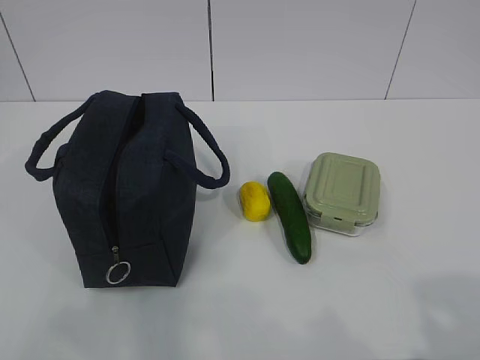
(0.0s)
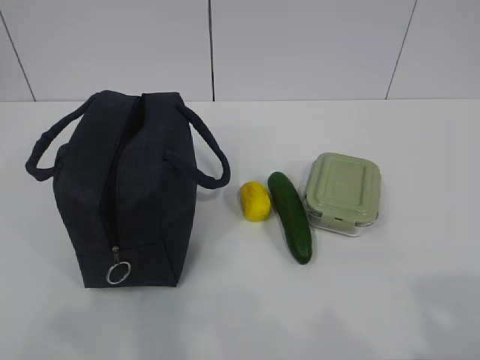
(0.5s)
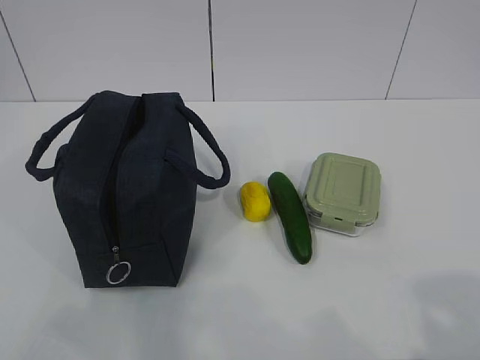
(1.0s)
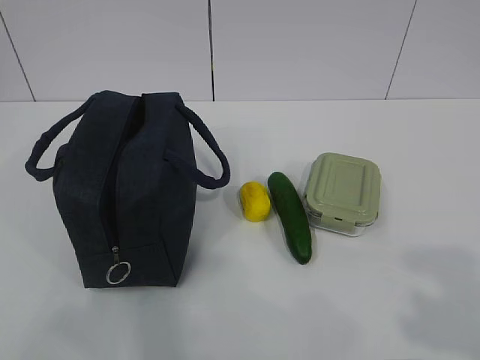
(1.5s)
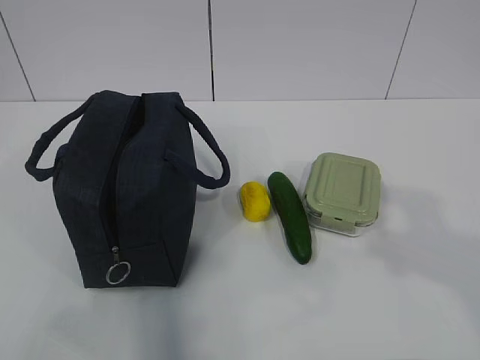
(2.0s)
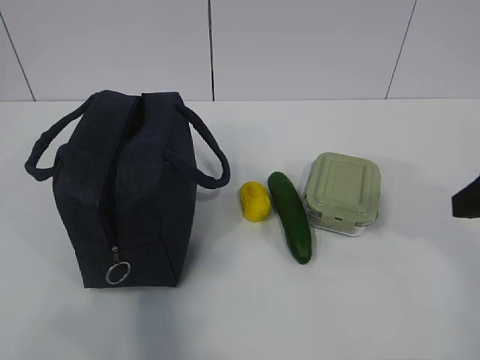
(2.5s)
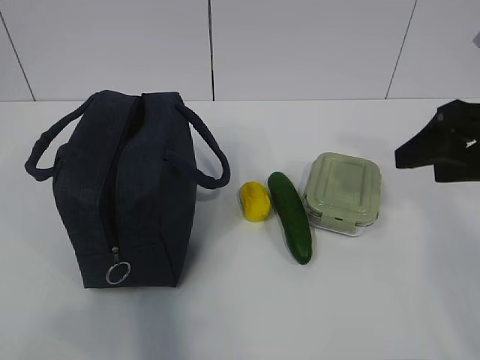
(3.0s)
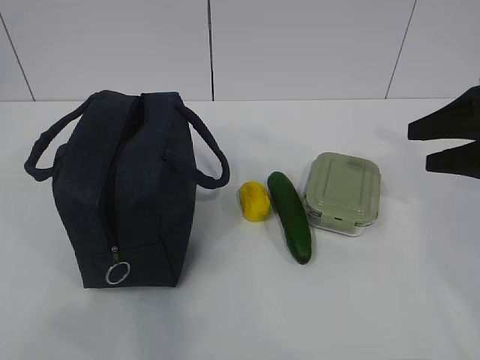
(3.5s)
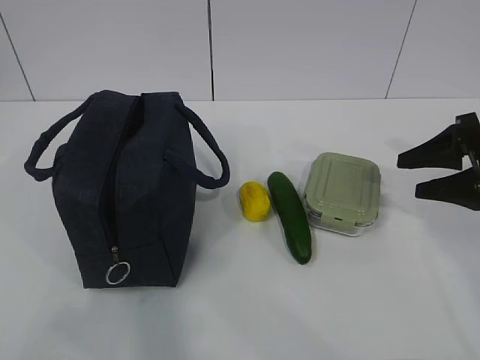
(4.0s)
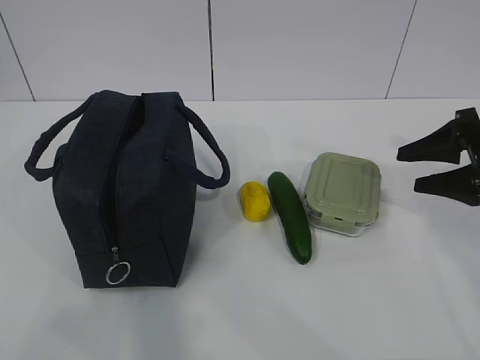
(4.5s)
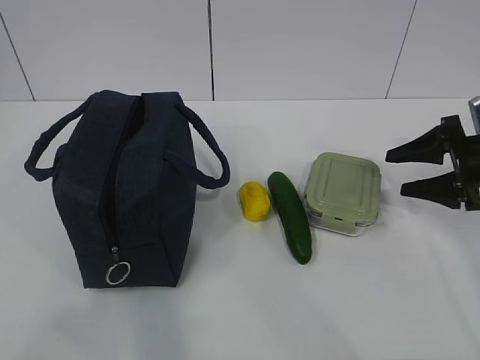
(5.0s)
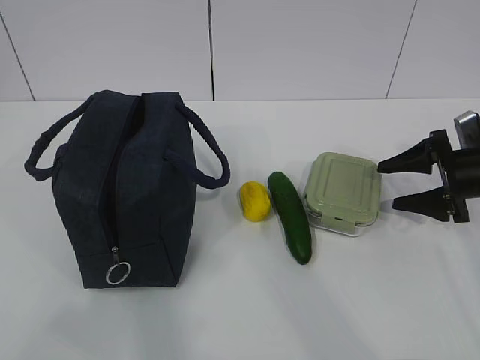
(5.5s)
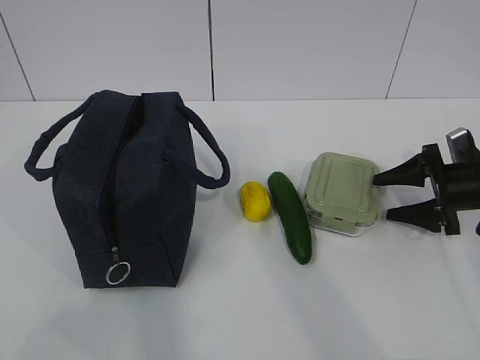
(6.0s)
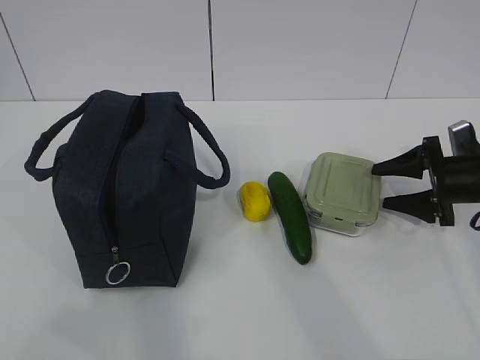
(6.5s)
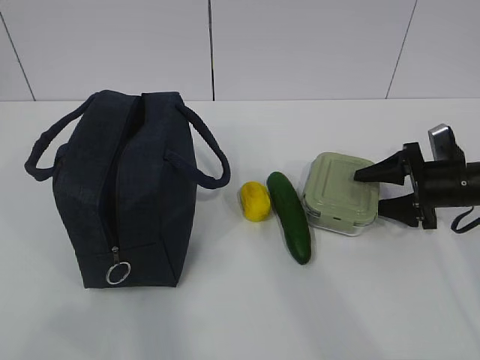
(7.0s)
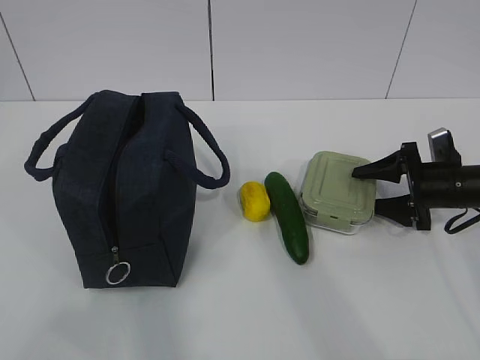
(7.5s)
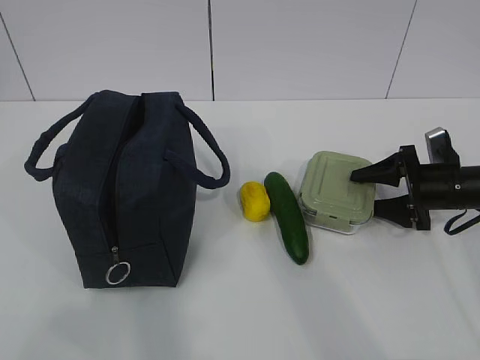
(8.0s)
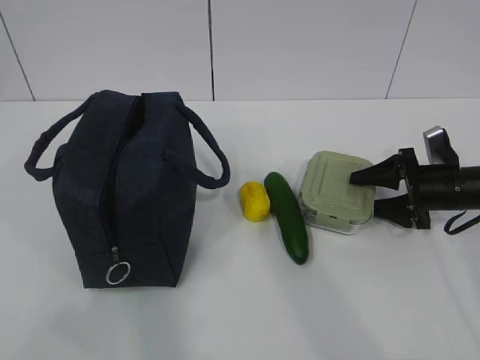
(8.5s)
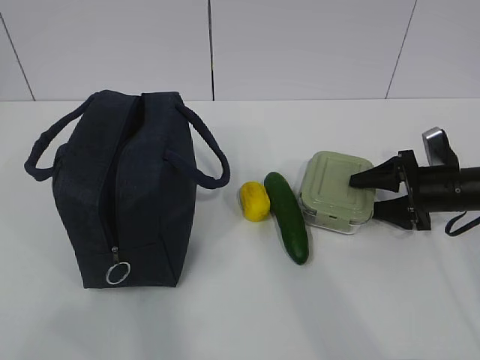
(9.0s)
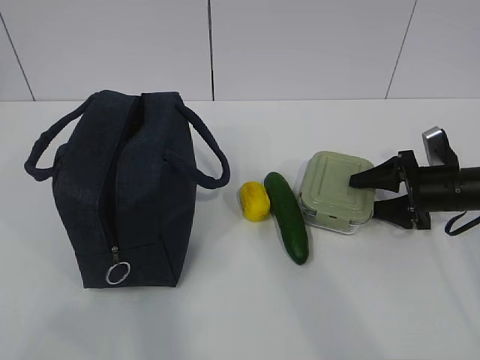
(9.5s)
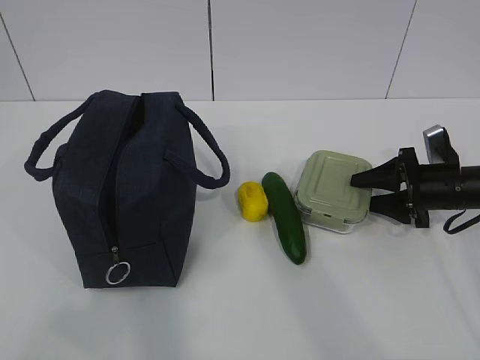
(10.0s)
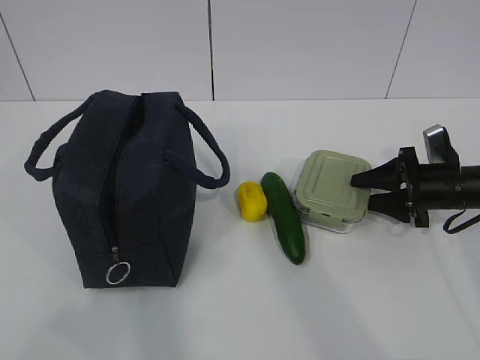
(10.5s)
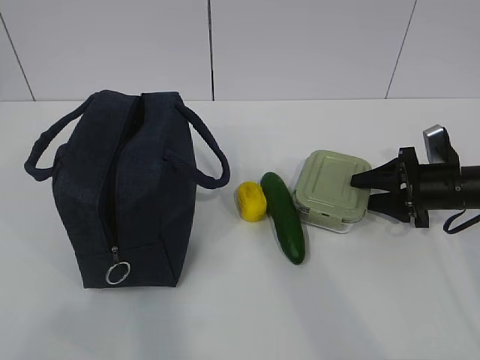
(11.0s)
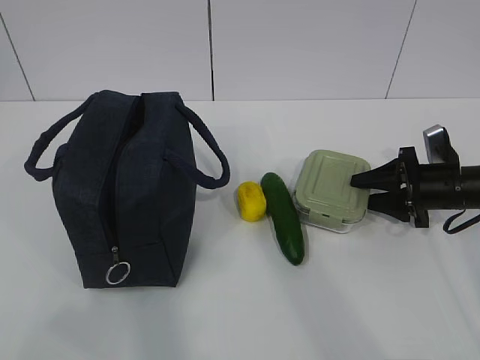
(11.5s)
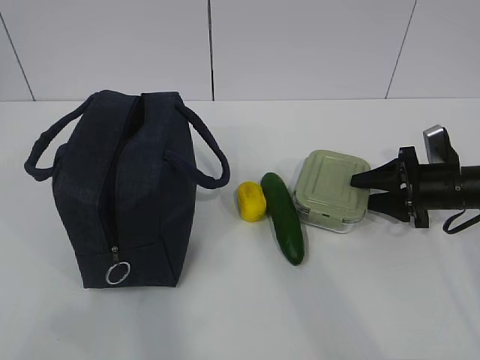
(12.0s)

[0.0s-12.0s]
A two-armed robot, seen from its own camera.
2.0s to 4.0s: The right gripper goes about 25 cm forward and downward.
4.0s to 6.0s: The right gripper is displaced downward and forward by about 10 cm.
6.0s to 10.0s: The grippers stay close to where they were, moving slightly.
10.0s to 12.0s: Both grippers stay about where they are.

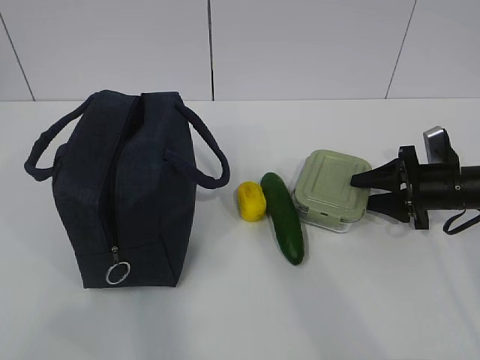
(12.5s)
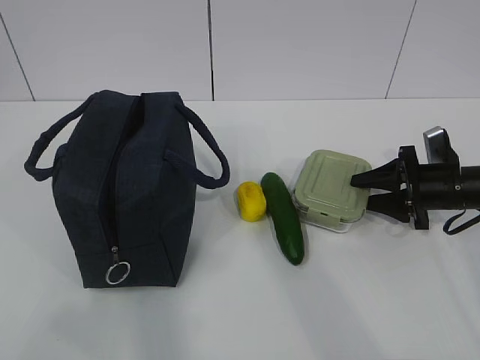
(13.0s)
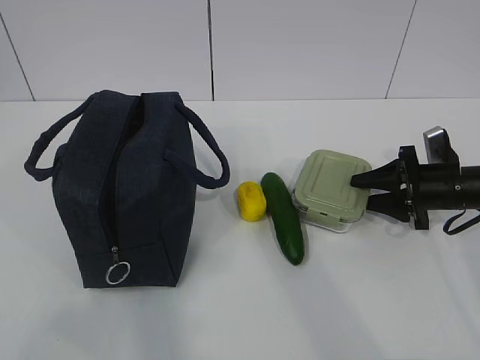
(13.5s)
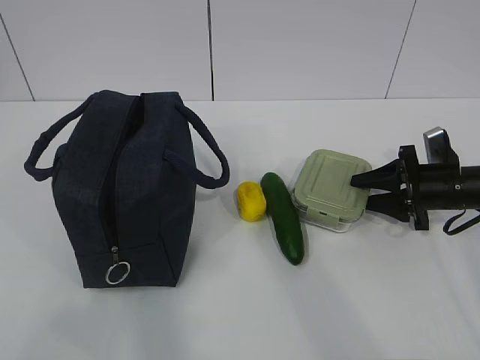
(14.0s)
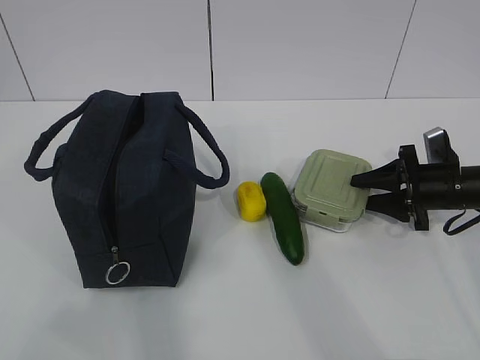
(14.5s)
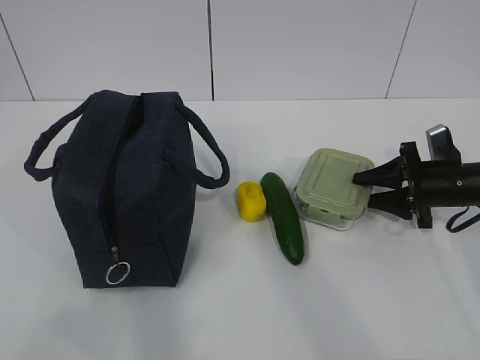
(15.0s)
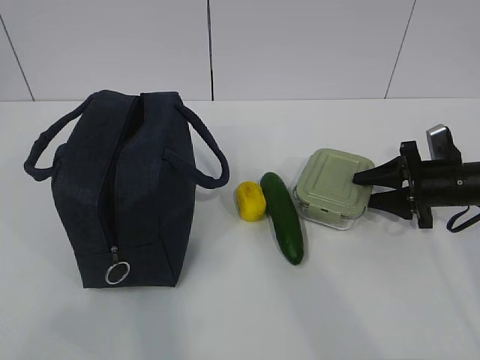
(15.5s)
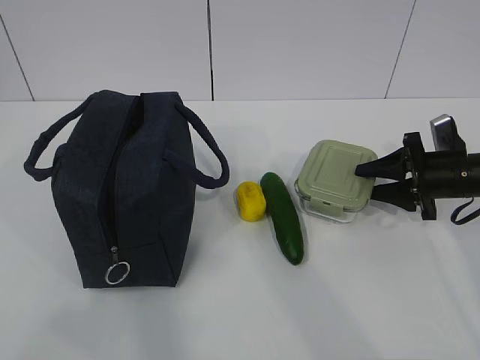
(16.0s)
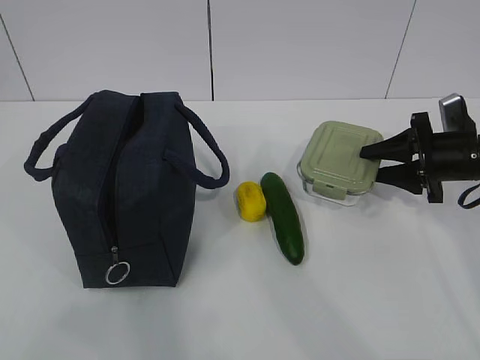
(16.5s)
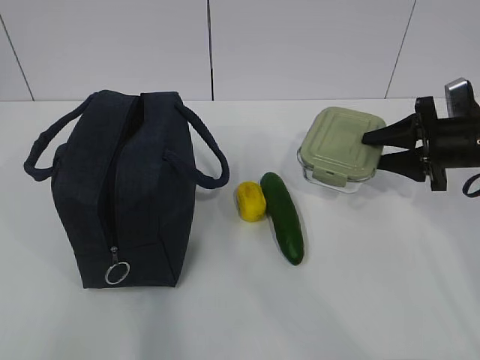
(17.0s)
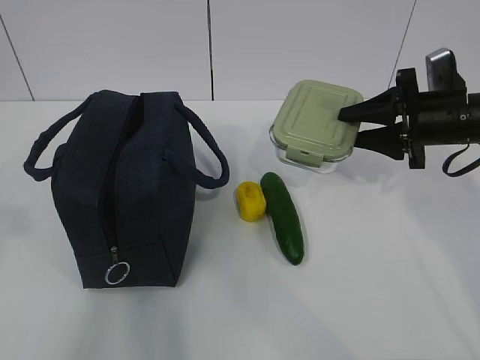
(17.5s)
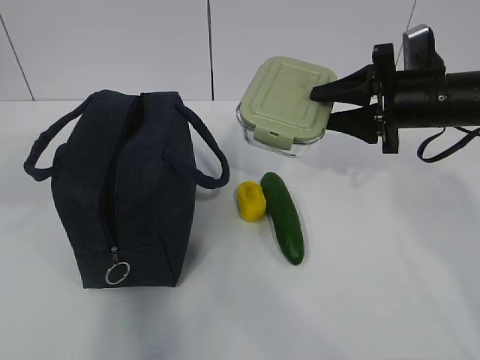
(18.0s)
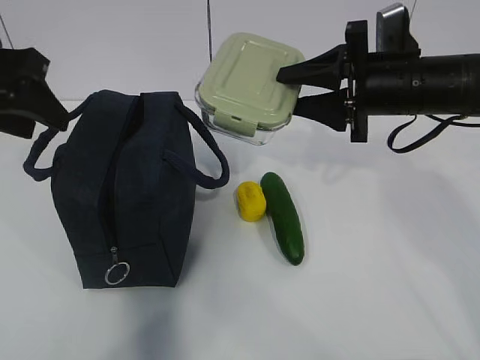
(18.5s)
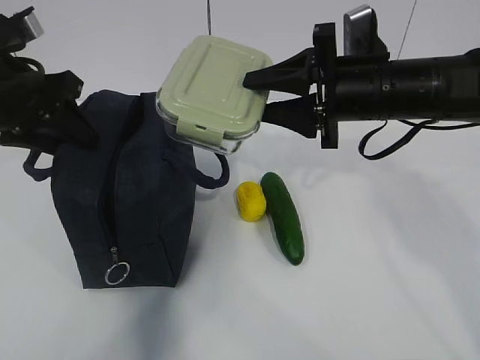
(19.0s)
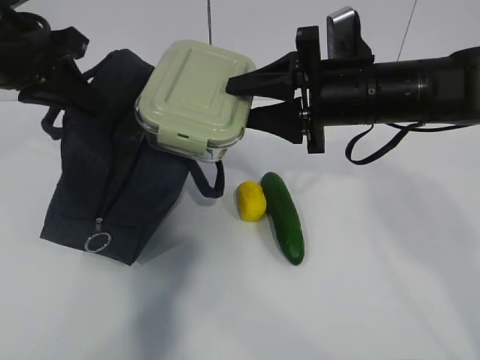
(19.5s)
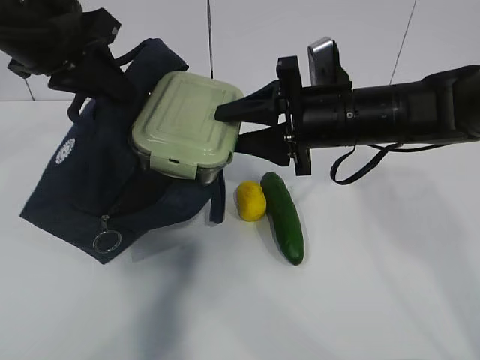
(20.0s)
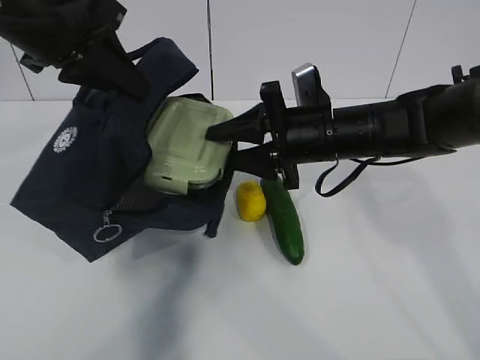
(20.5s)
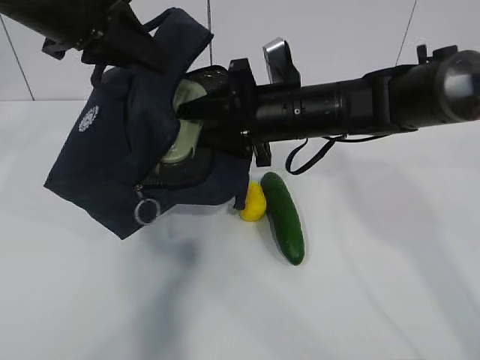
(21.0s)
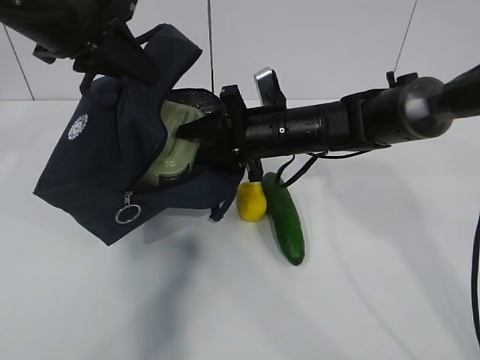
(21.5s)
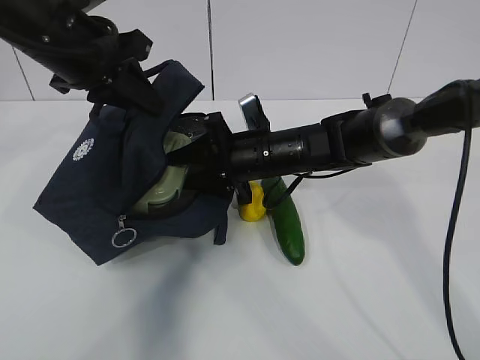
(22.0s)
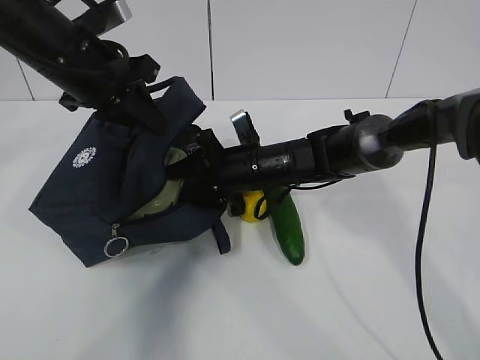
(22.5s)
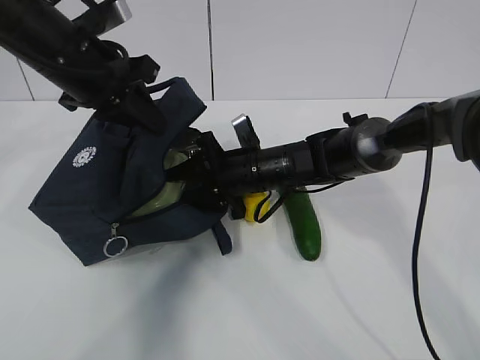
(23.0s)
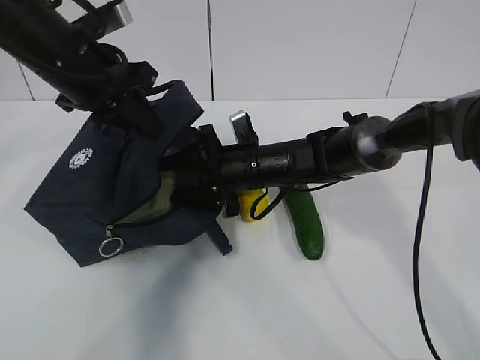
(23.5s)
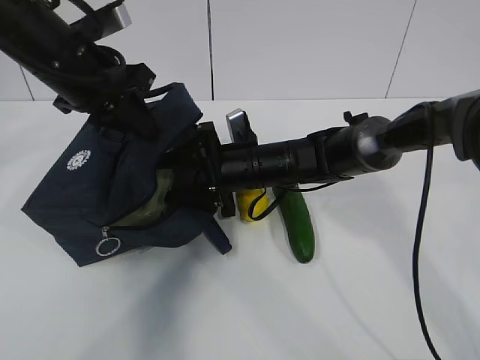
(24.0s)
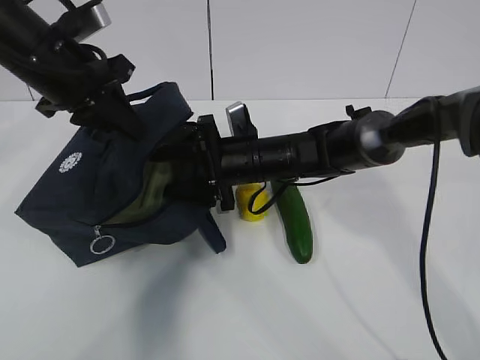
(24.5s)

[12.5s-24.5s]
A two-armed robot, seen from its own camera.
Step, 16.5s to 19.5s: Place it into the bag with your right hand.
Step, 20.0s to 24.0s: Grab the cucumber with your right hand.
12.5s to 14.5s: The two grippers keep their place.
14.5s to 16.5s: The right gripper is displaced upward by approximately 5 cm.
16.5s to 18.5s: The right gripper moves to the left and upward, approximately 15 cm; the left gripper heads forward, covering some 30 cm, and opens its fingers.
18.5s to 20.5s: The right gripper is displaced to the left and downward by roughly 10 cm. The left gripper goes some 5 cm to the right, and closes up.
20.5s to 22.5s: The right gripper moves downward and to the left, approximately 10 cm. The left gripper moves downward, approximately 5 cm.
22.5s to 24.5s: There are only small adjustments of the grippers.

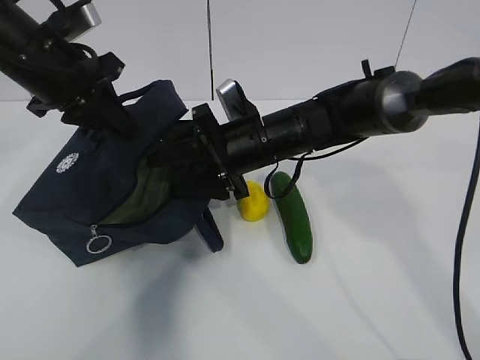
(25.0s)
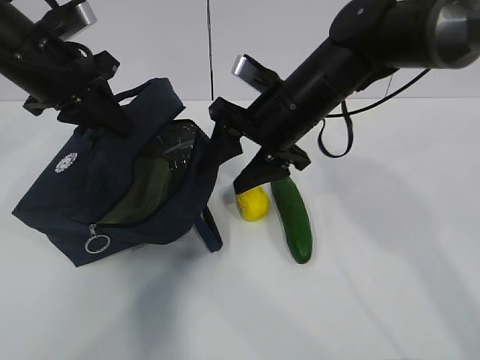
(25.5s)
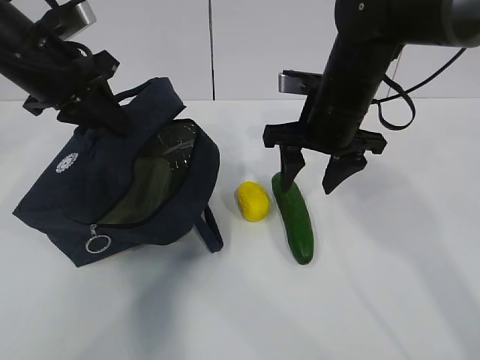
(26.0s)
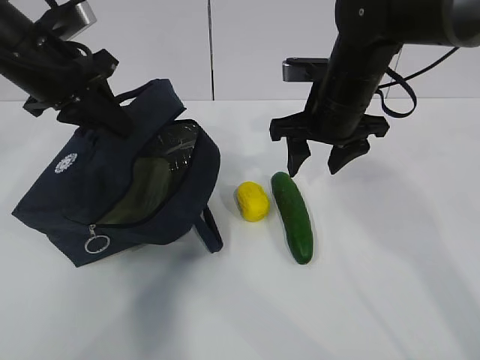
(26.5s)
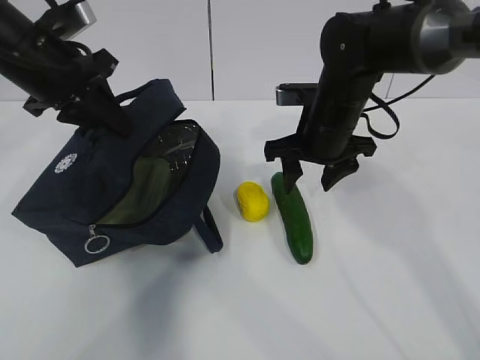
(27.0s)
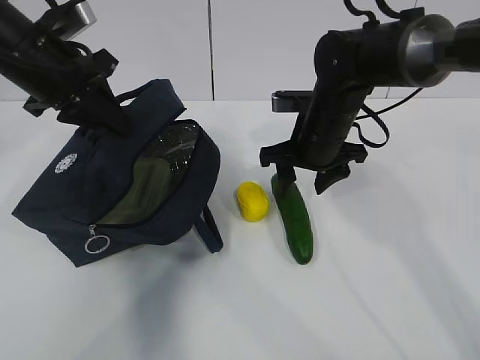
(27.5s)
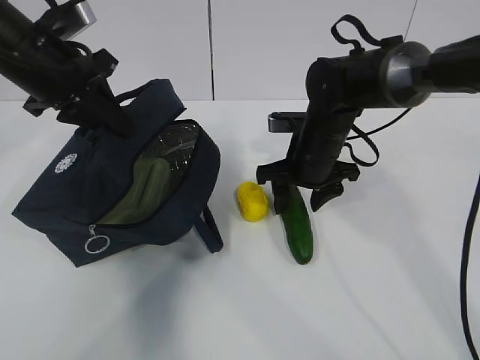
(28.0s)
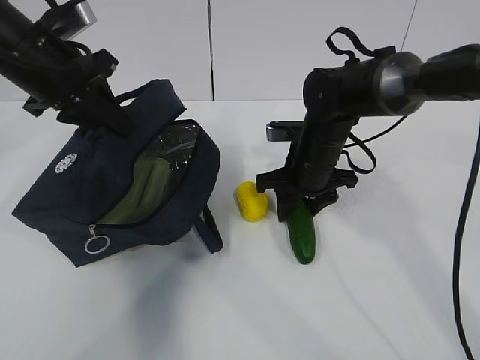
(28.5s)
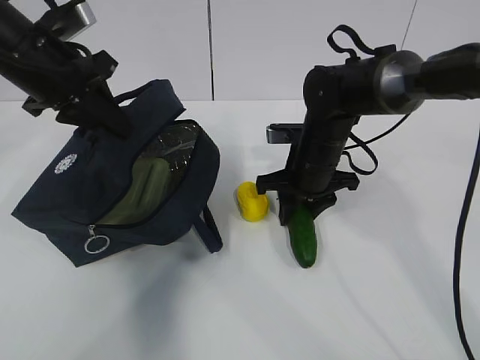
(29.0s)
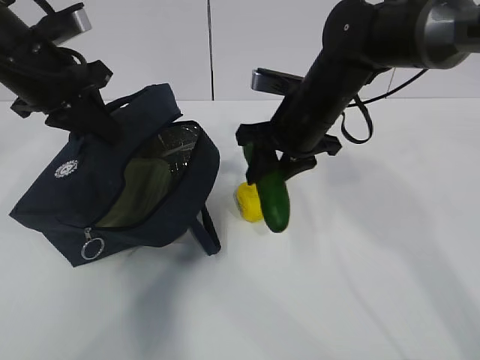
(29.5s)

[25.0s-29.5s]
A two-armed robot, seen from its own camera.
Step, 25.0s to 26.0s: Place it into the bag with your right hand.
25.0s to 27.0s: The right gripper goes some 10 cm to the right.
27.0s to 29.5s: The right gripper goes downward and returns, about 5 cm each way.
